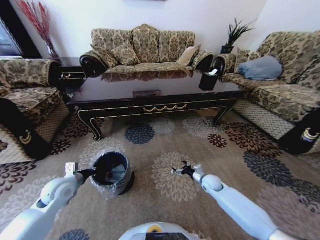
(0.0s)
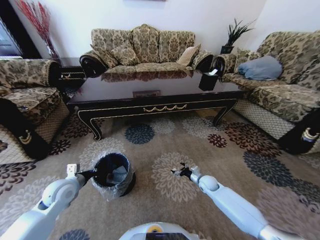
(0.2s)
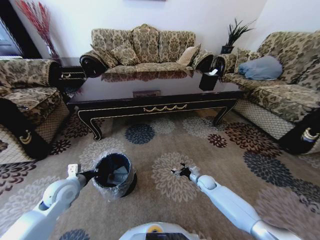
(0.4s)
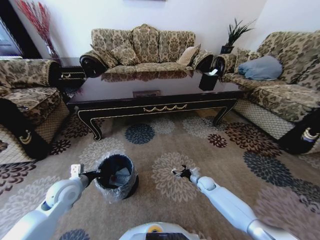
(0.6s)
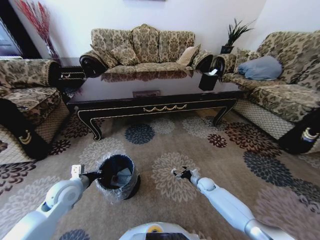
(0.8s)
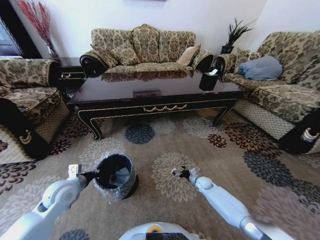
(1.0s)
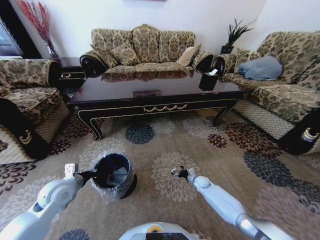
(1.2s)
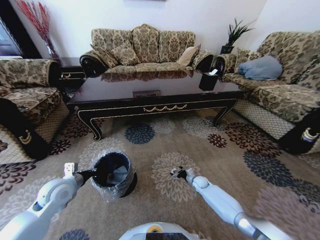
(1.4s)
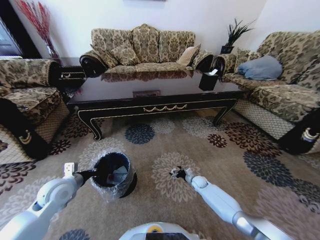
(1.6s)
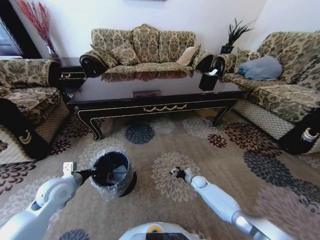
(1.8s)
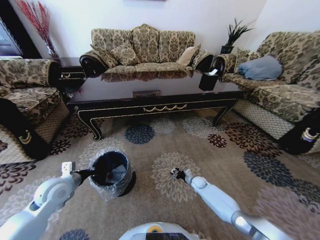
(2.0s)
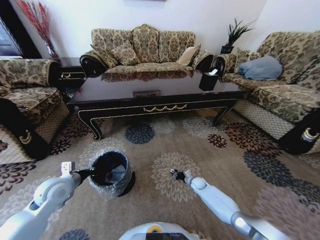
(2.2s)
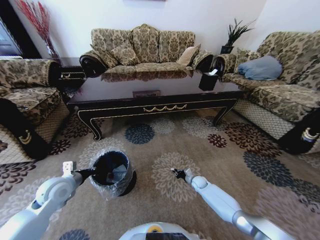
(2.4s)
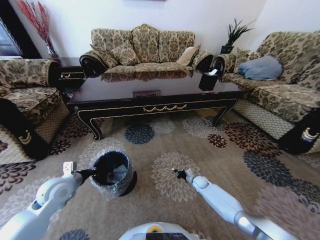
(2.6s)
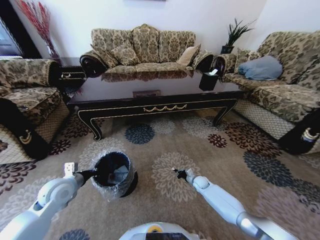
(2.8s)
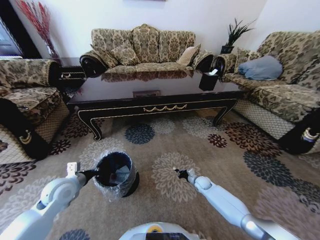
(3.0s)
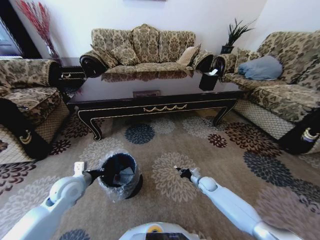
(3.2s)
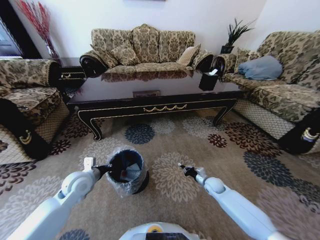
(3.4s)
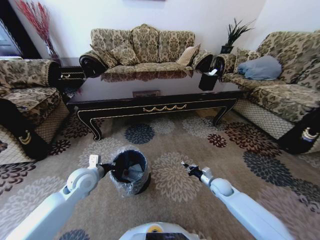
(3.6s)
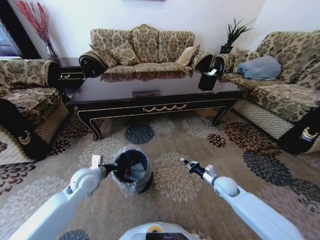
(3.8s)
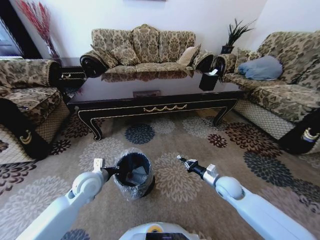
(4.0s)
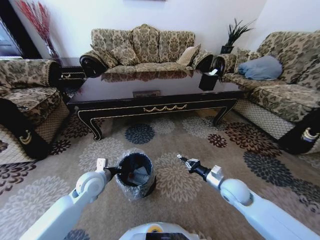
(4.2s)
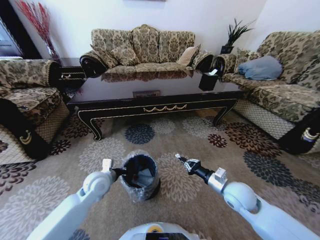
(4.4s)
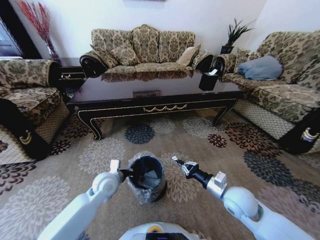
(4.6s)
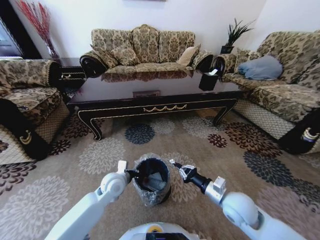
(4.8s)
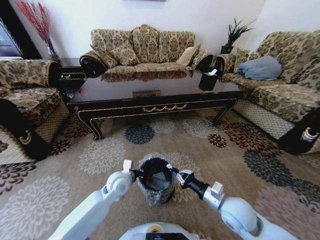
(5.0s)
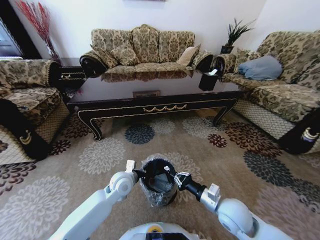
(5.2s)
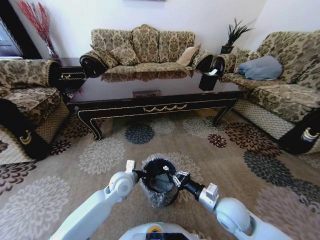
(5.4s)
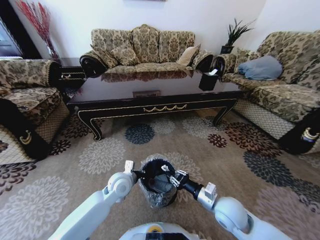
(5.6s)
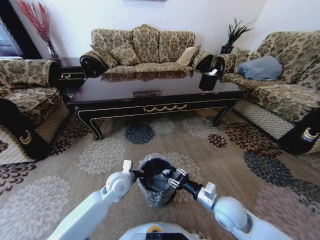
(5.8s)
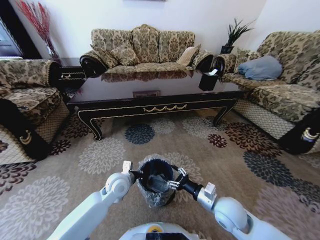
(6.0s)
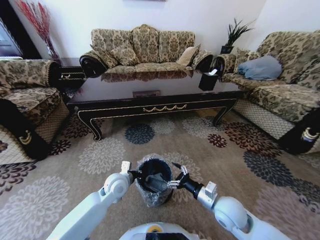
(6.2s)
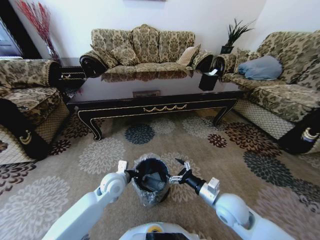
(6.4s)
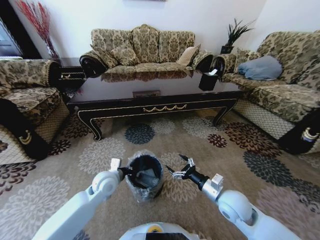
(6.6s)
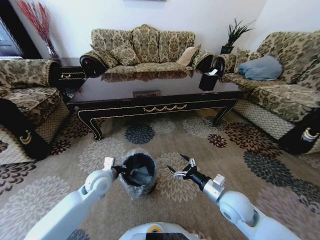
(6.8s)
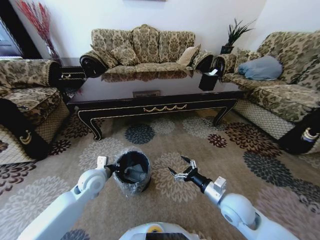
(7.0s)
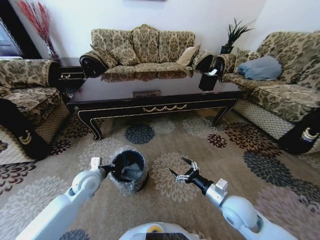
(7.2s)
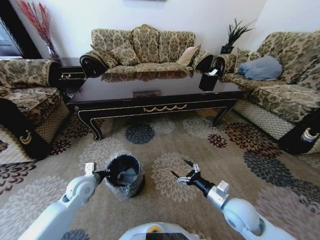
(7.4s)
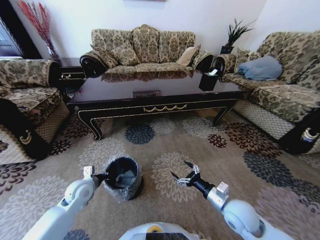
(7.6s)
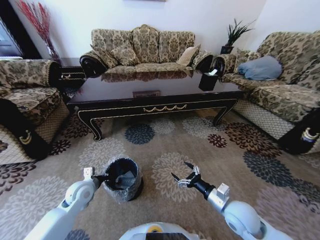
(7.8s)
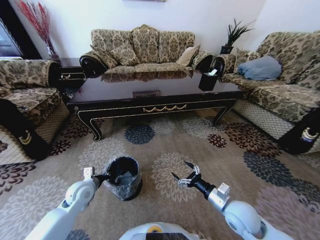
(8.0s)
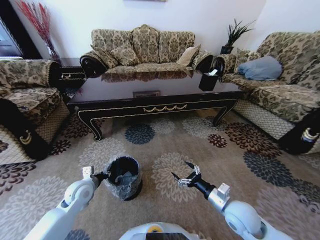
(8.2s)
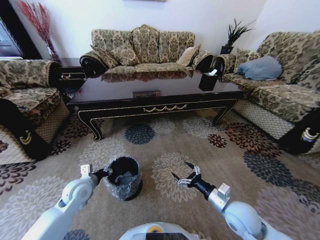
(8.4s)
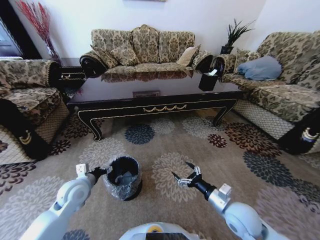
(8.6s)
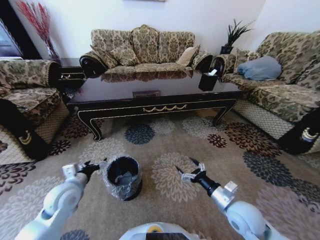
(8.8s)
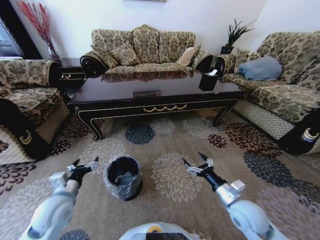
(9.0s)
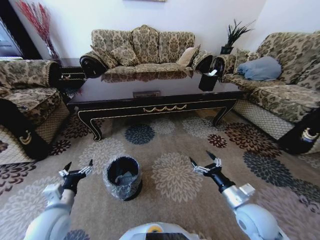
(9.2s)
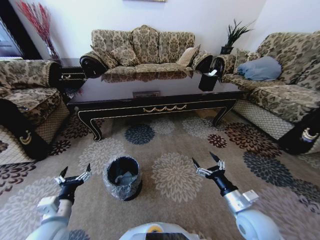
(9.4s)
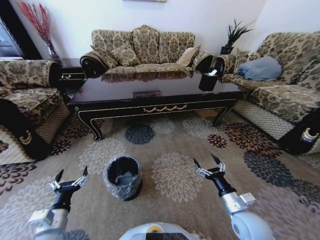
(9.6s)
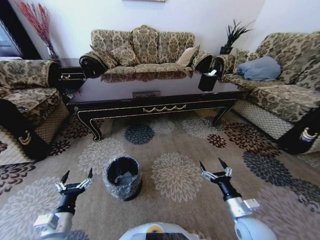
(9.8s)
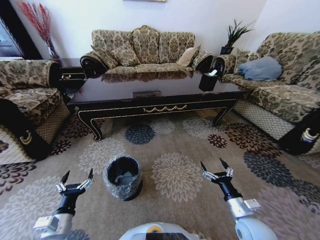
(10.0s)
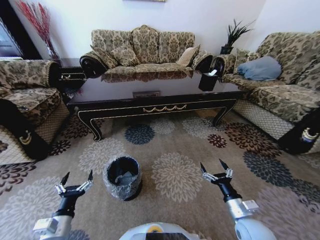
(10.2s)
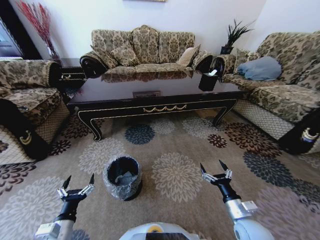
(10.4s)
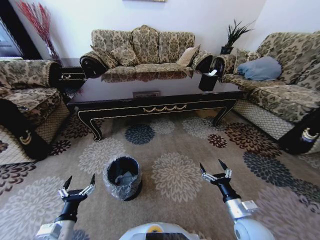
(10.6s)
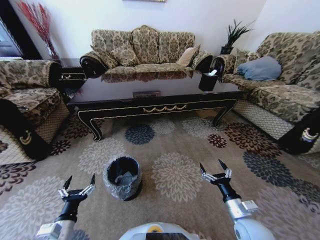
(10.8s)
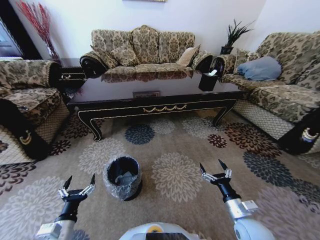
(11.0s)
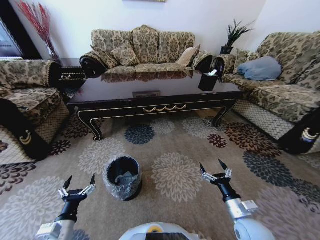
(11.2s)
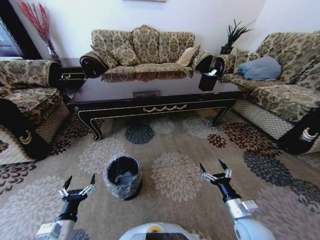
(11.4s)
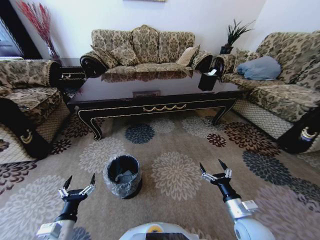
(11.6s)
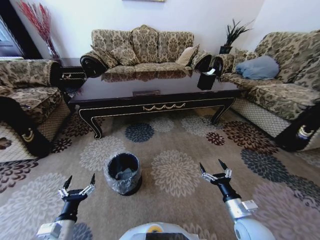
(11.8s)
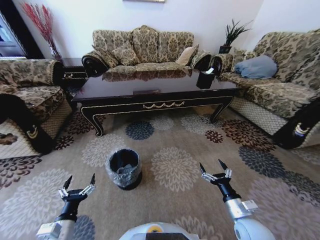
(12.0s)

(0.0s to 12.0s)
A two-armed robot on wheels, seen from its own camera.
Task of the whole recording: Move to the front of the table and pick up the trash from the floor, then place it into the trash bin.
0.0s - 1.6s: The right gripper heads downward, covering roughly 10 cm.
1.6s - 3.0s: The right gripper closes its fingers.
3.0s - 4.4s: The right gripper moves upward and backward, some 30 cm. Meanwhile the left gripper moves to the right, approximately 10 cm.
4.4s - 6.0s: The left gripper heads to the right, covering approximately 10 cm, while the right gripper travels to the left by some 5 cm, and opens.
6.0s - 7.6s: The left gripper is displaced to the left by about 15 cm.
7.6s - 9.0s: The left gripper heads backward and upward, covering some 10 cm, and opens up.
9.0s - 10.4s: The right gripper heads downward, covering about 5 cm, while the left gripper travels backward and downward by about 15 cm.

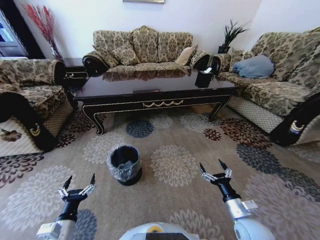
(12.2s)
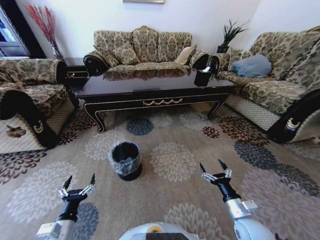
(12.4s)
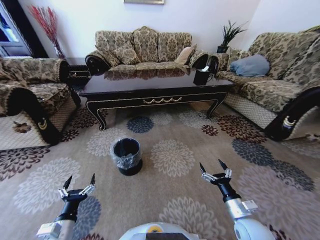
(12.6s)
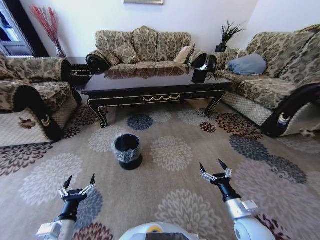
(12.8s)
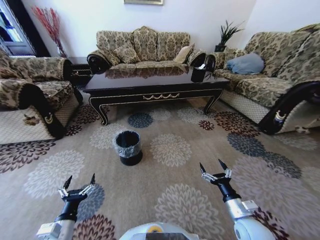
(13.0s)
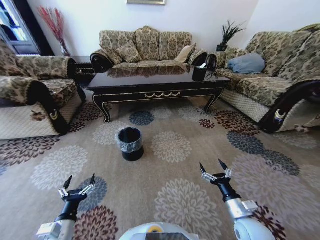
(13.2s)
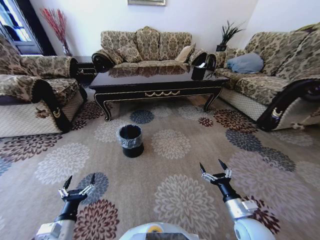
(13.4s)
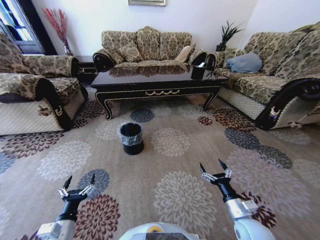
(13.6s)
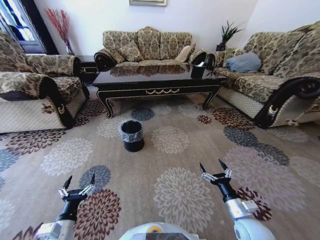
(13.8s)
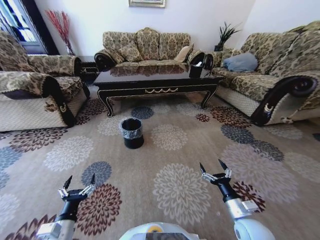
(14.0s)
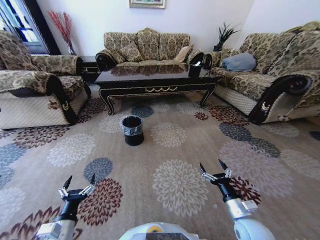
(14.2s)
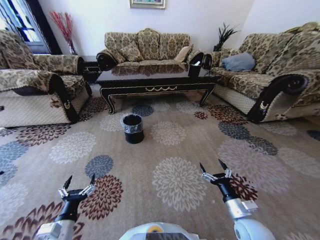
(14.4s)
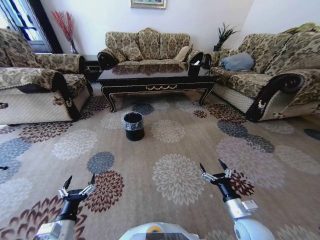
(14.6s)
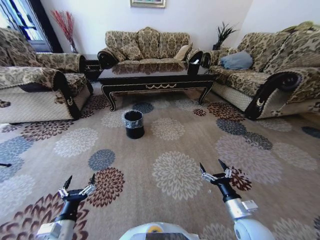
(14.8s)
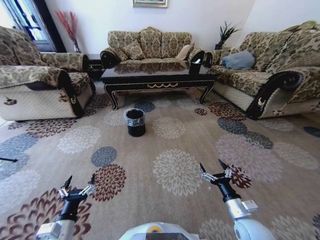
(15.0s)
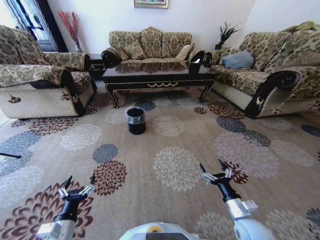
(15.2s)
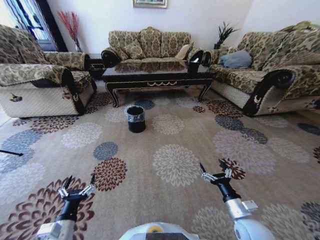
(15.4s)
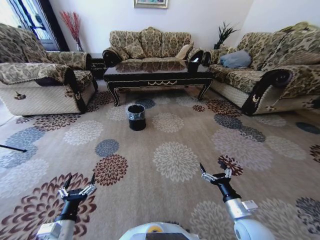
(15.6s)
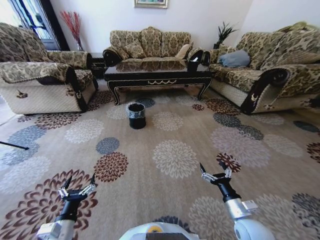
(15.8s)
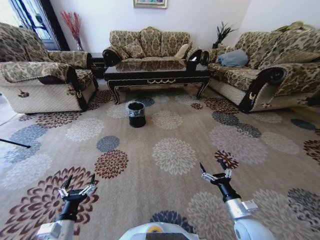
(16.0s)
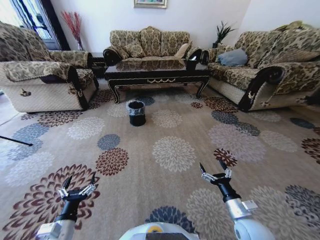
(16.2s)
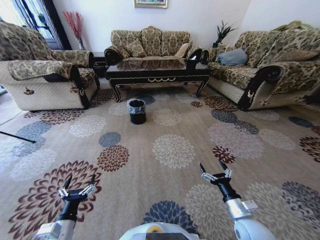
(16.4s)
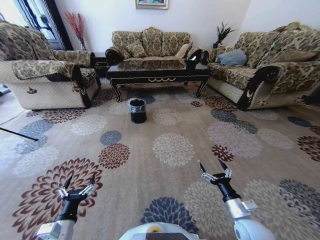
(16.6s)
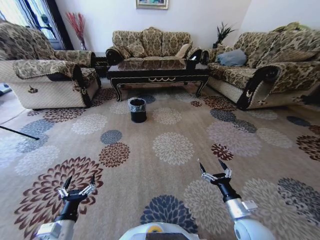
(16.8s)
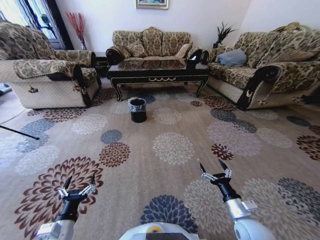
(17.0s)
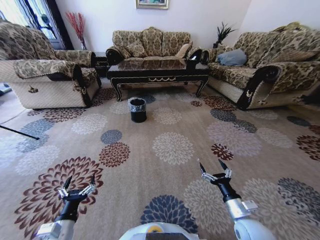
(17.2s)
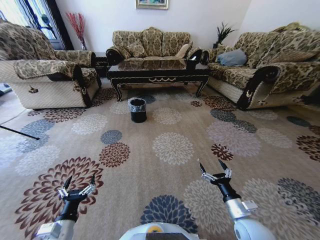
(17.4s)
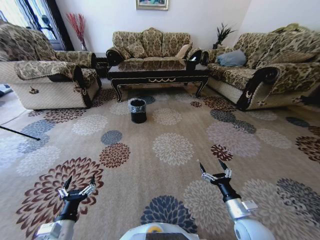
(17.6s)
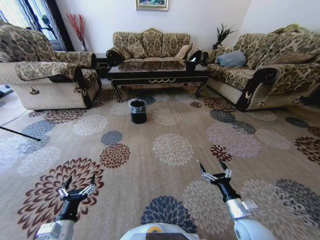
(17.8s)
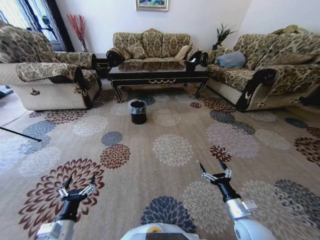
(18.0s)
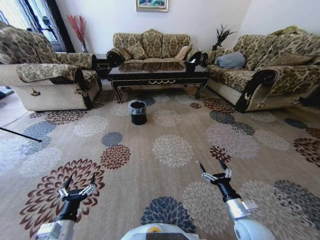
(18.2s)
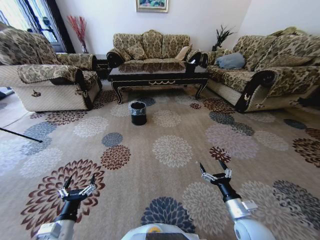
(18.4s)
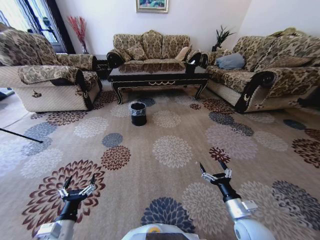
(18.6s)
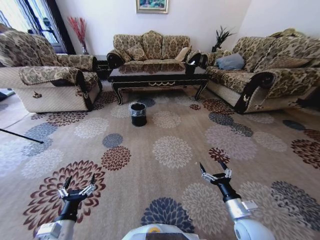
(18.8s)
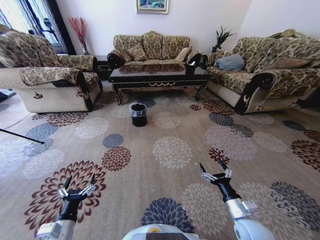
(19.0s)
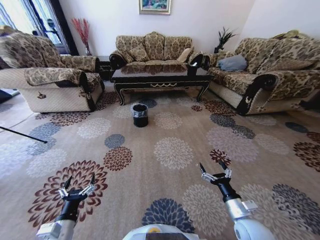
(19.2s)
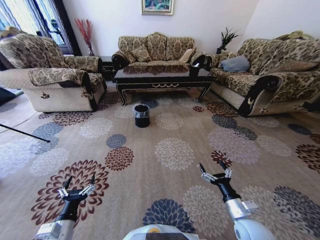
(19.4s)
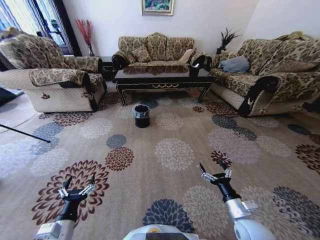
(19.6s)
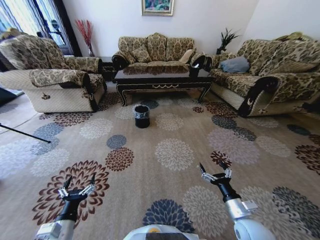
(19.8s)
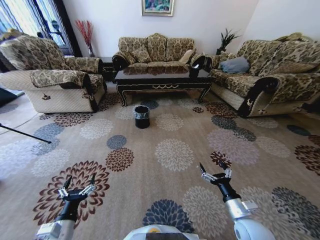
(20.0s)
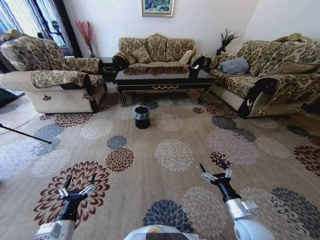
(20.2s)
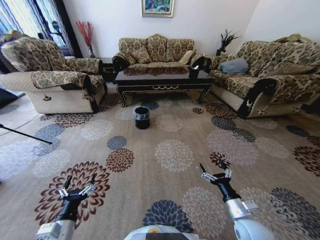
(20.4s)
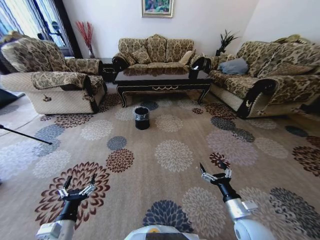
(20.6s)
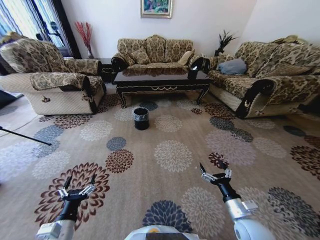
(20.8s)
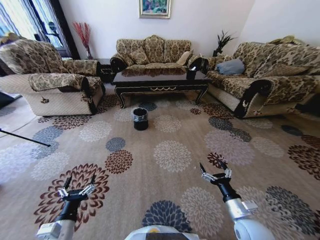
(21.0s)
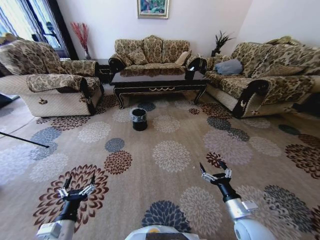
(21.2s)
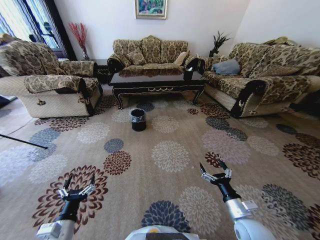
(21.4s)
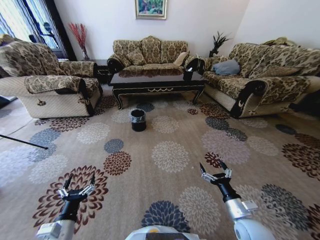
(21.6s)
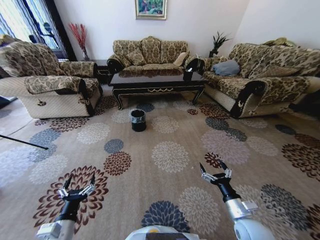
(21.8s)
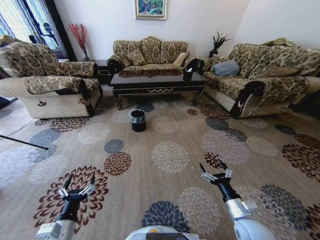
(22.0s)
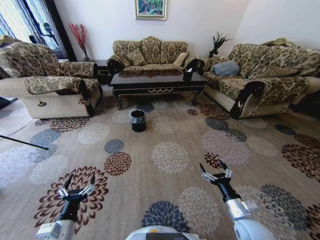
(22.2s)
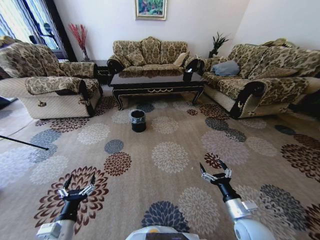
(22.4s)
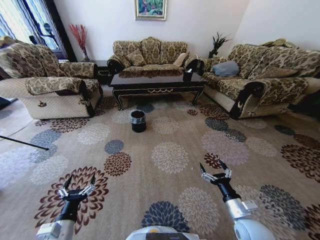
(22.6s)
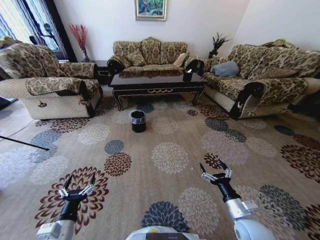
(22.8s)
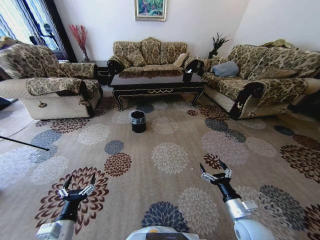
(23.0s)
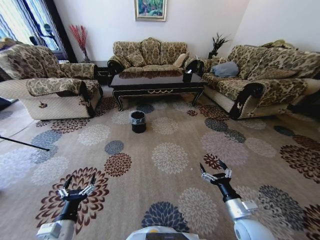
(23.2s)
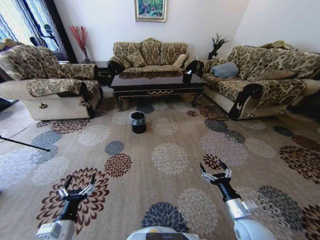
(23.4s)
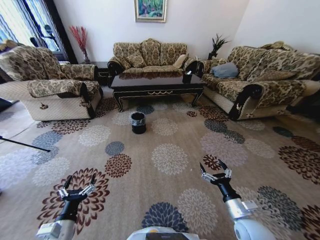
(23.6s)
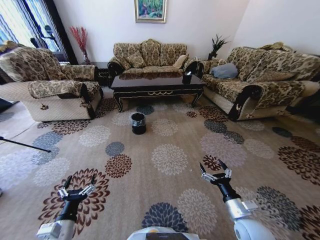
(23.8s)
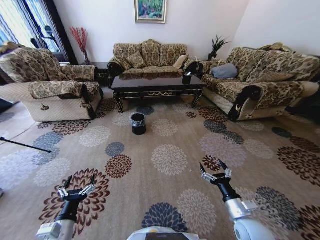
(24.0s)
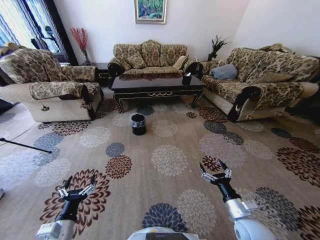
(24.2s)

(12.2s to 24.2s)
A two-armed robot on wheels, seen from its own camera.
Task of the whole recording: Move to the front of the table and pick up the trash from the floor, then place it into the trash bin.
16.6s - 18.2s: The two grippers keep their place.
21.2s - 22.6s: The two grippers keep their place.
